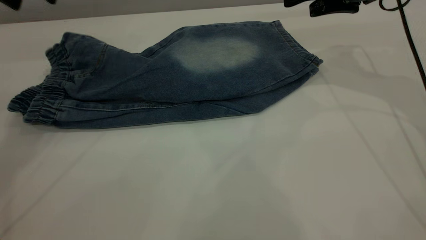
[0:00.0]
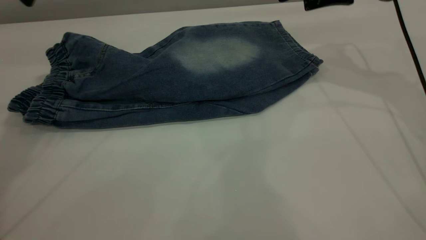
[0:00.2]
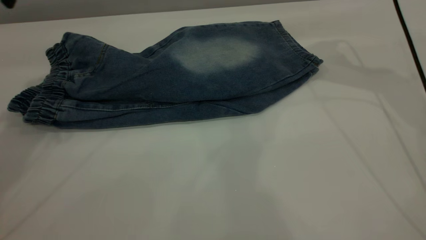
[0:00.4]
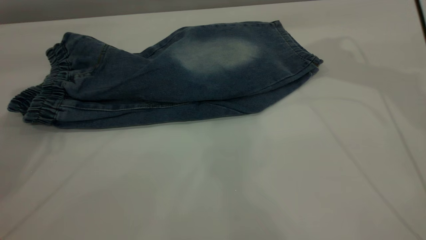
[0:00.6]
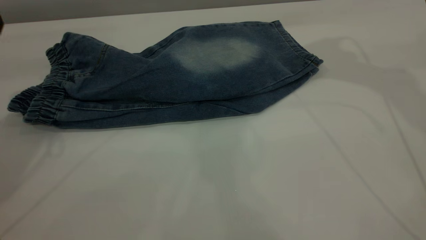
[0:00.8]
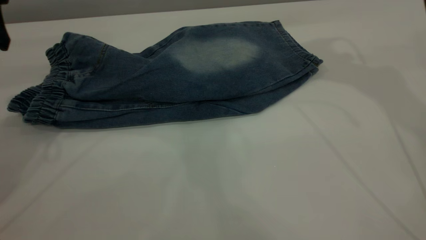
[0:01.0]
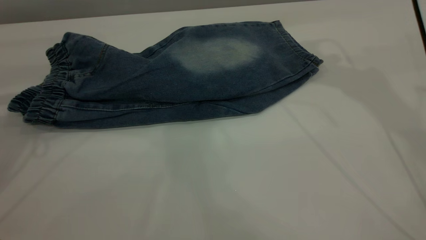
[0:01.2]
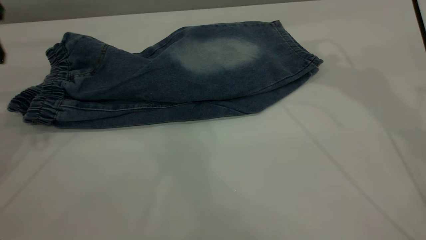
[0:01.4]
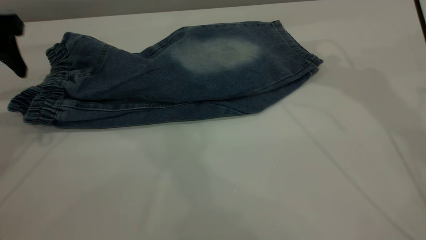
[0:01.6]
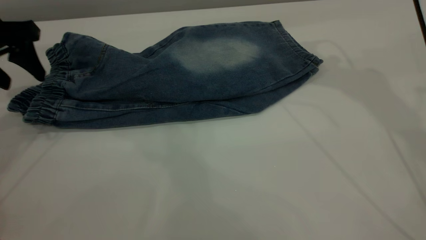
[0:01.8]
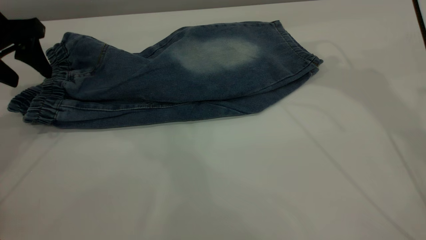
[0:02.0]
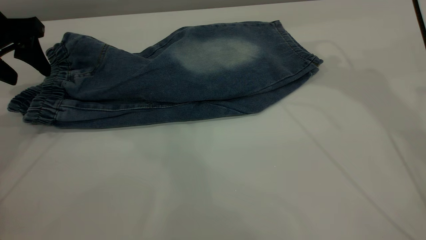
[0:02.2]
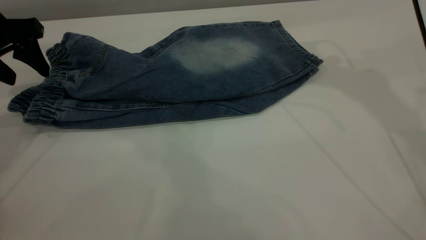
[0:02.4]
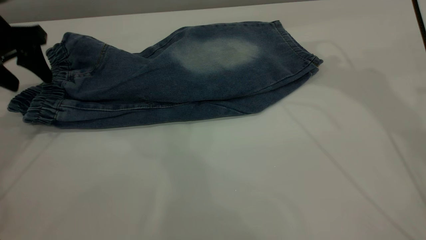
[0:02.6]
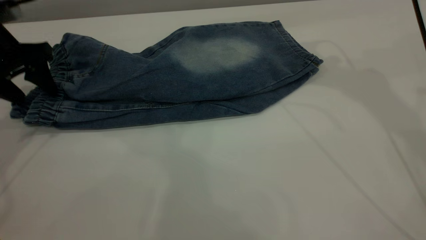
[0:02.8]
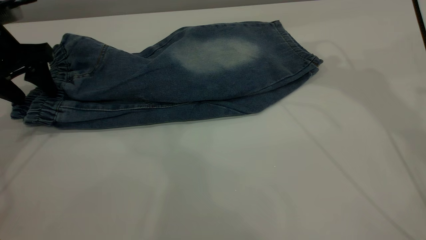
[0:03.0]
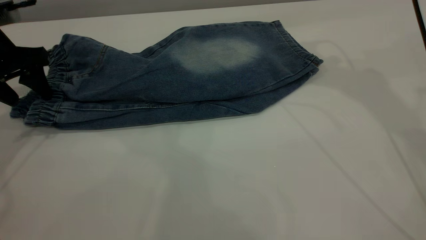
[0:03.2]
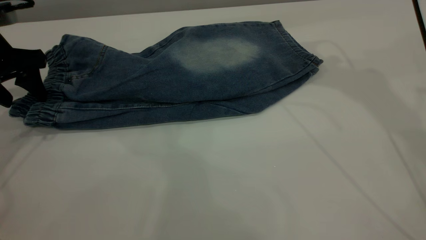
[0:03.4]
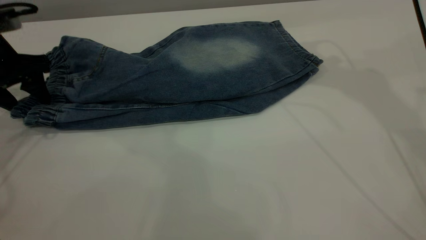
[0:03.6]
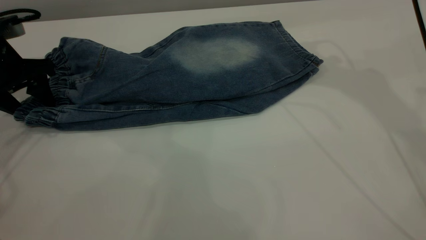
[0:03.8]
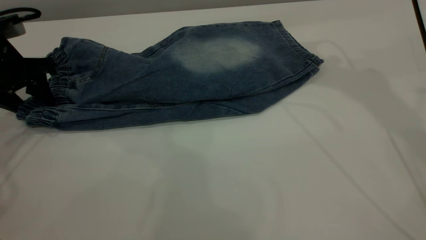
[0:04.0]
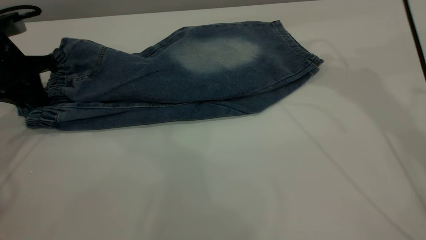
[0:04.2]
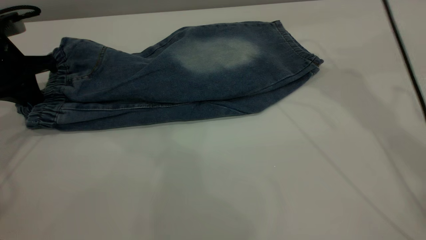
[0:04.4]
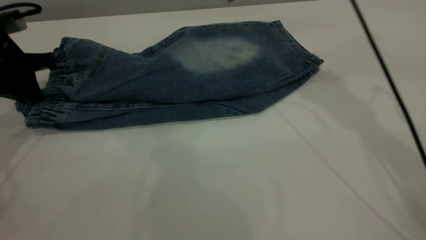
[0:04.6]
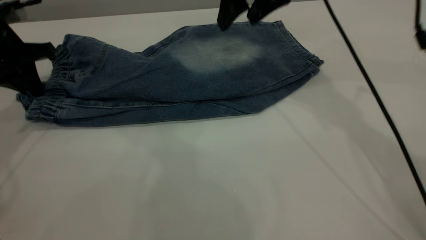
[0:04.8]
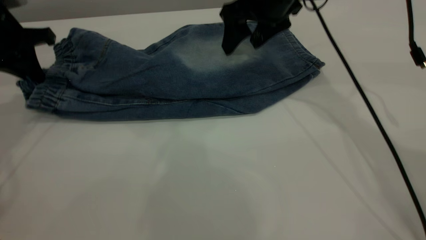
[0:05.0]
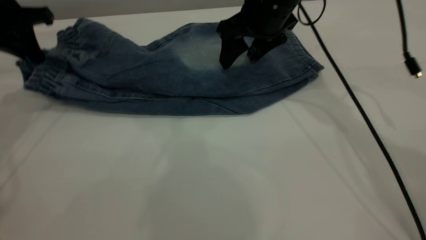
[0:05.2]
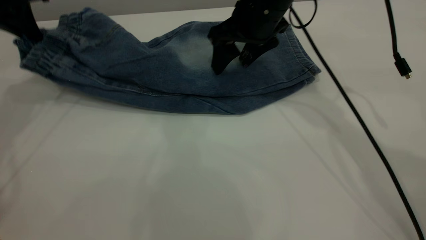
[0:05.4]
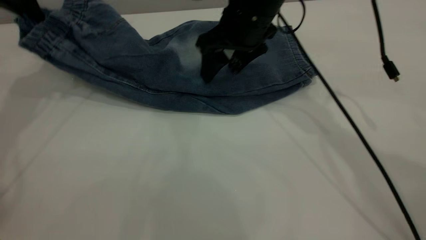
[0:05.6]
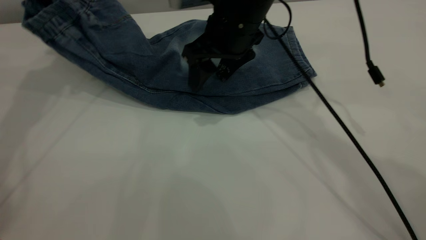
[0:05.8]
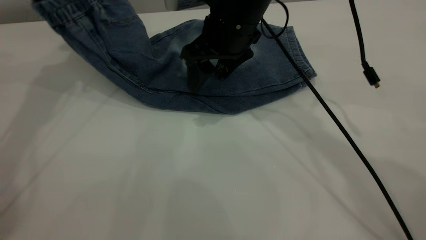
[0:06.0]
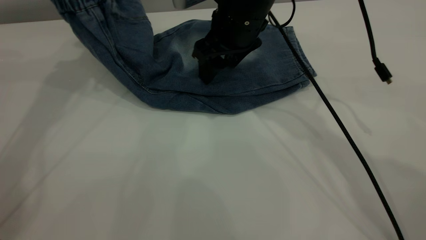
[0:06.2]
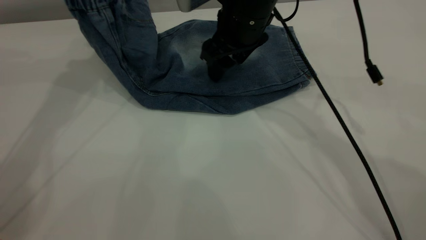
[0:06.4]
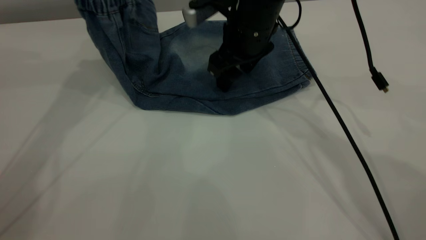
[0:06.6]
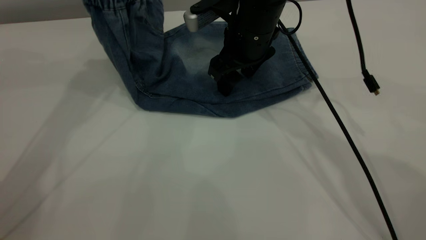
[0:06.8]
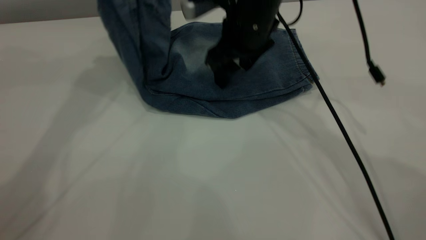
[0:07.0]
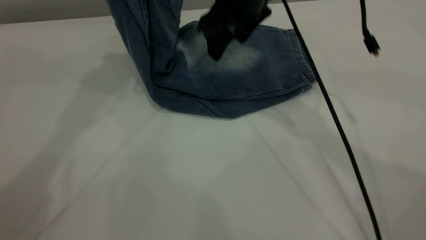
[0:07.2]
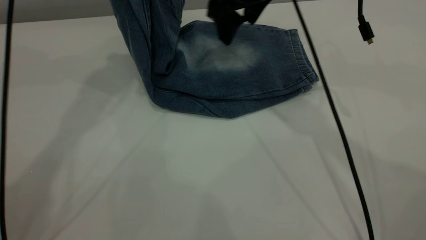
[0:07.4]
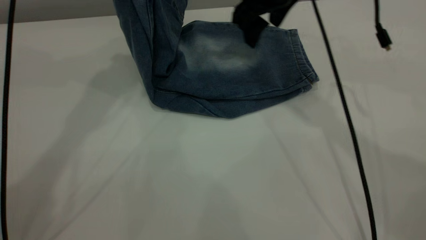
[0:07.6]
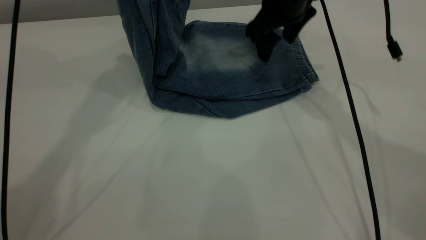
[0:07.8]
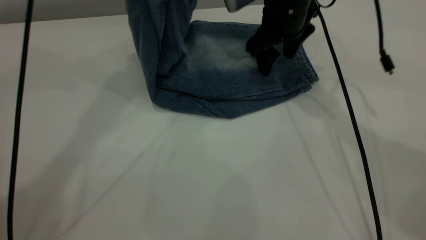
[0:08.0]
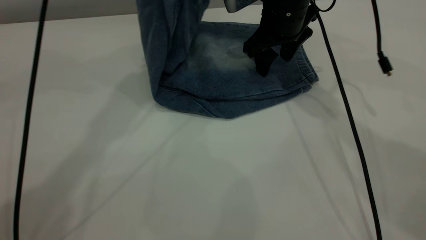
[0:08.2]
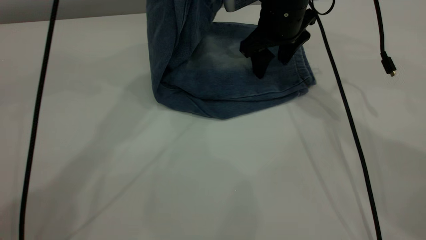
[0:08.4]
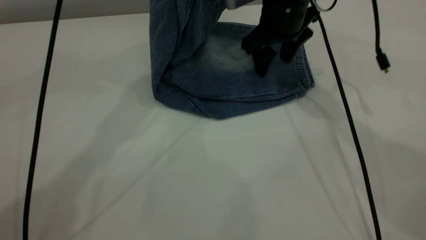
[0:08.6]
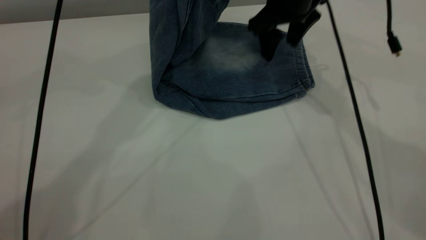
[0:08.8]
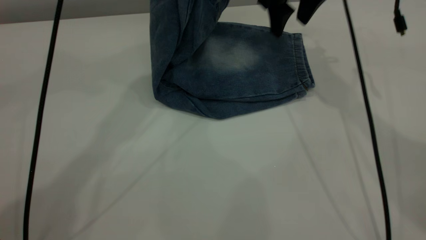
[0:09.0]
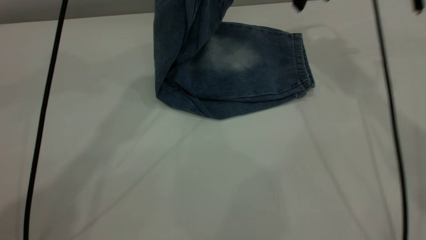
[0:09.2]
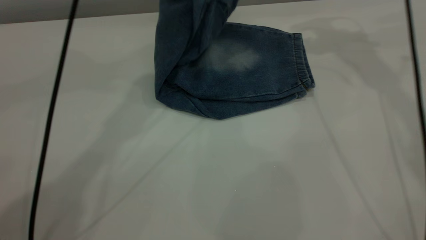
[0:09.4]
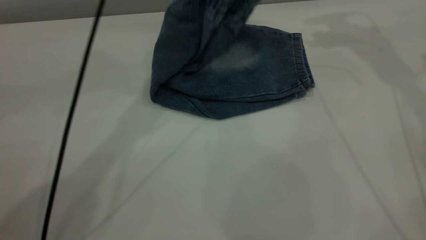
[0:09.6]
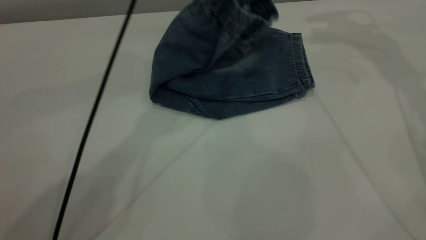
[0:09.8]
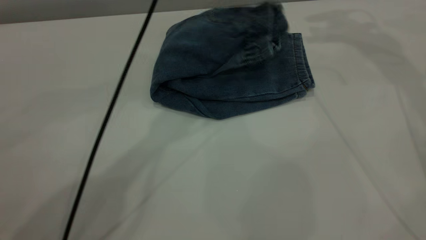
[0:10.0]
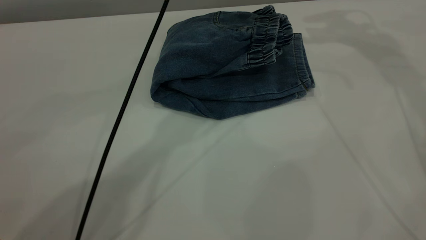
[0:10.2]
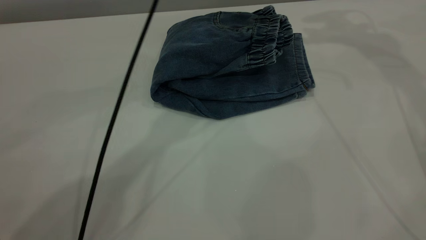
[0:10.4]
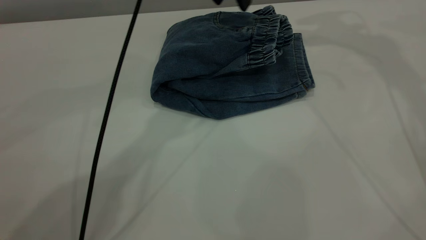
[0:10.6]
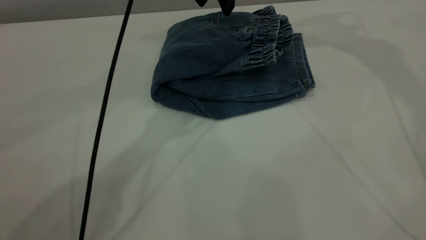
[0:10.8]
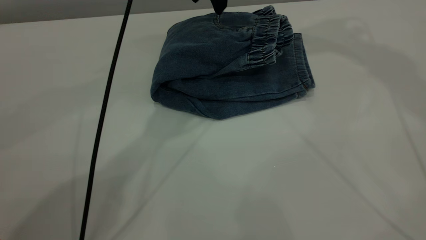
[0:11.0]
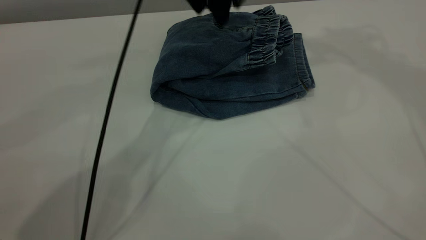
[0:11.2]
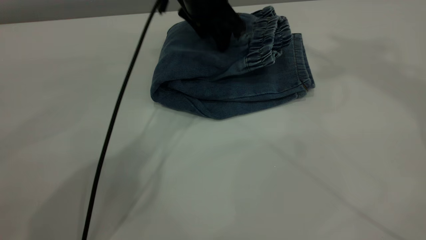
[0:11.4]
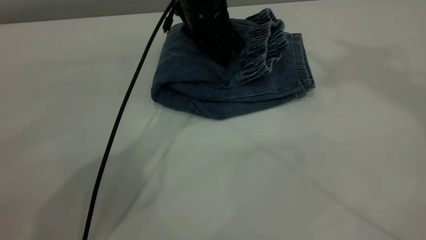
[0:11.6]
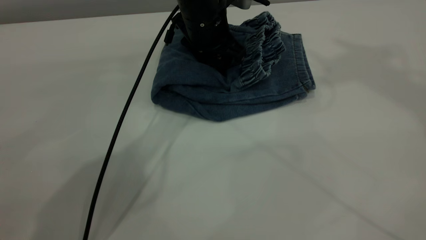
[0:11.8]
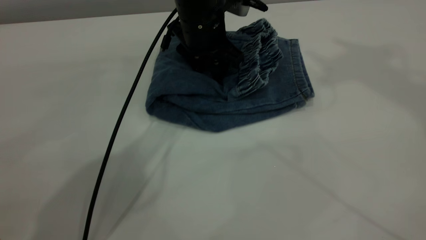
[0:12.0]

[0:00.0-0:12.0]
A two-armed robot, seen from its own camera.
Step, 0:00.6 to 0:10.2: Fold the pants from left to right.
0:00.0 to 0:01.6: The left gripper heads downward, covering approximately 10 cm. Meanwhile the right gripper shifts approximately 15 cm upward and to the left.
0:01.6 to 0:03.0: The left gripper moves approximately 5 cm.
0:03.0 to 0:04.4: The right gripper changes place by about 5 cm, while the left gripper closes.
0:04.4 to 0:06.0: The right gripper shifts roughly 15 cm downward and to the left. The left gripper travels upward and forward by about 20 cm.
0:06.0 to 0:07.6: The right gripper shifts about 5 cm to the right. Meanwhile the left gripper shifts about 15 cm to the right and upward.
0:07.6 to 0:09.0: Both grippers move to the right, about 5 cm.
0:09.0 to 0:10.4: The left gripper travels downward and to the right by some 10 cm, and opens up. The right gripper travels upward and to the right by approximately 15 cm.
0:10.4 to 0:12.0: The left gripper goes some 15 cm downward. The right gripper is displaced upward and backward by roughly 30 cm.

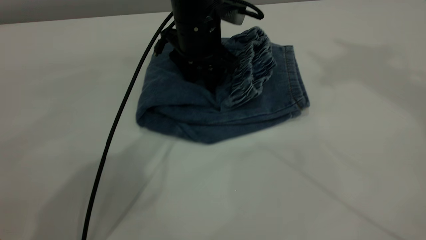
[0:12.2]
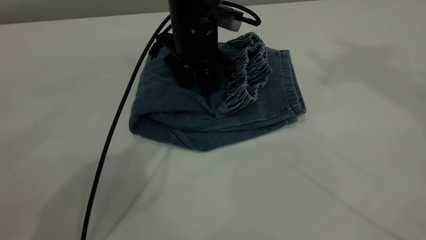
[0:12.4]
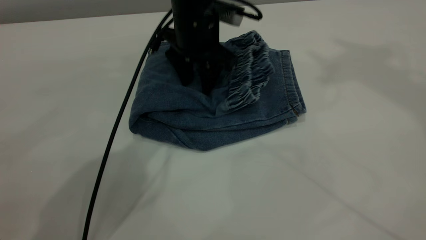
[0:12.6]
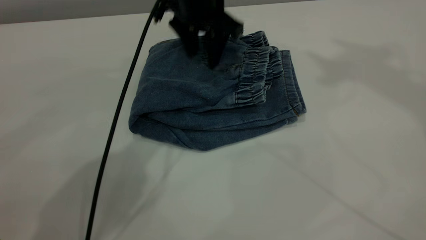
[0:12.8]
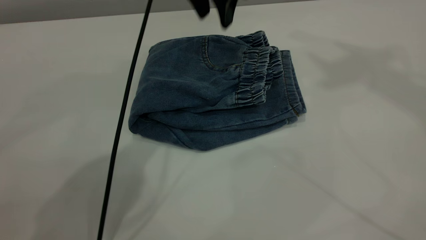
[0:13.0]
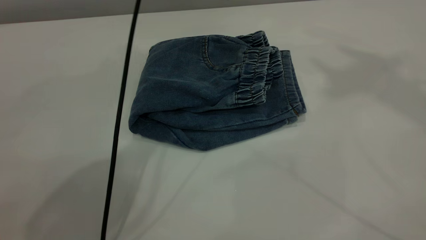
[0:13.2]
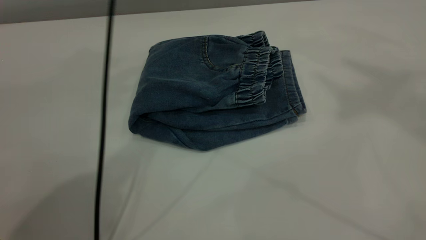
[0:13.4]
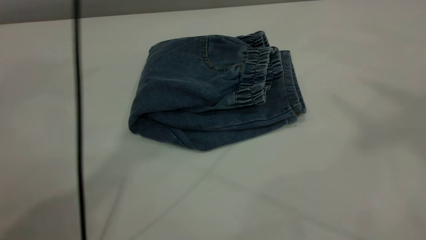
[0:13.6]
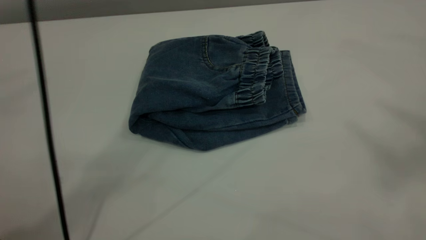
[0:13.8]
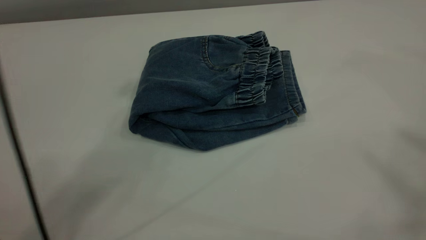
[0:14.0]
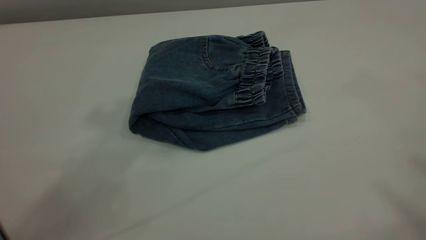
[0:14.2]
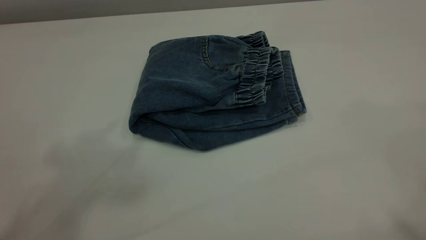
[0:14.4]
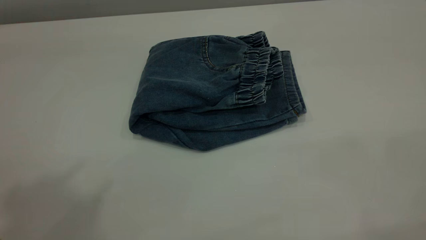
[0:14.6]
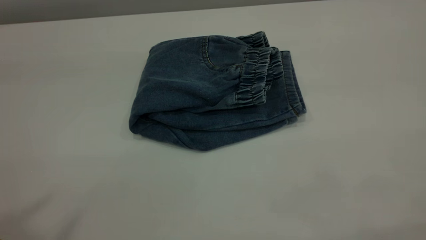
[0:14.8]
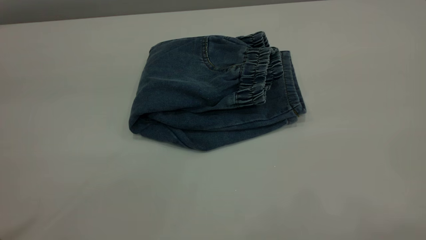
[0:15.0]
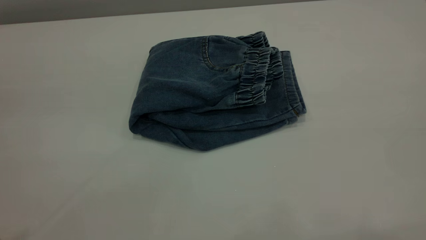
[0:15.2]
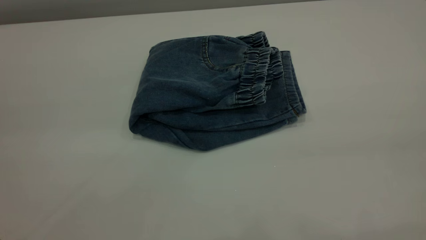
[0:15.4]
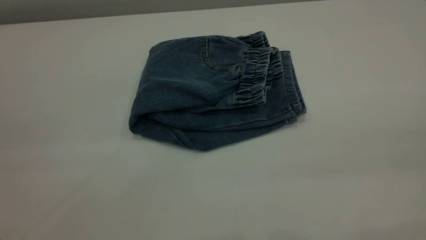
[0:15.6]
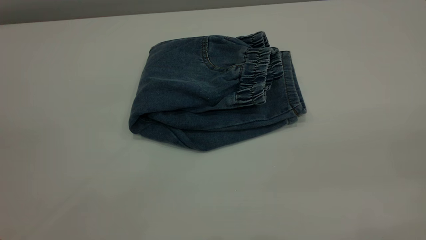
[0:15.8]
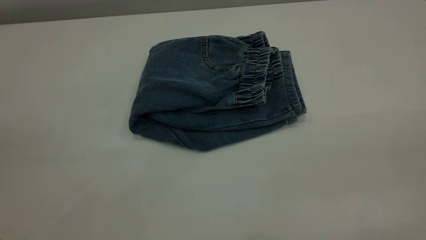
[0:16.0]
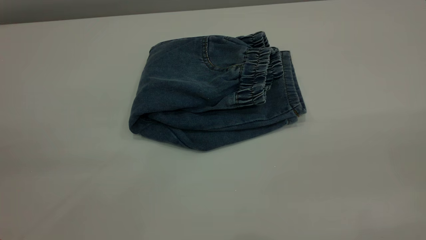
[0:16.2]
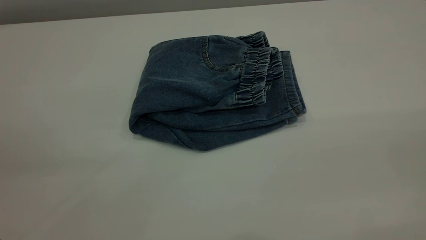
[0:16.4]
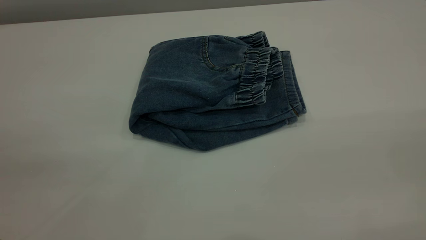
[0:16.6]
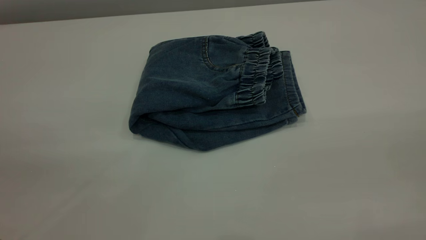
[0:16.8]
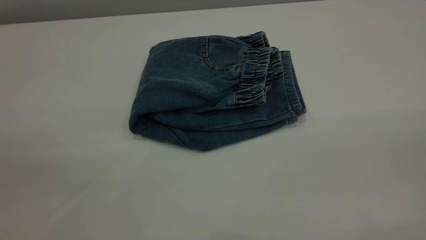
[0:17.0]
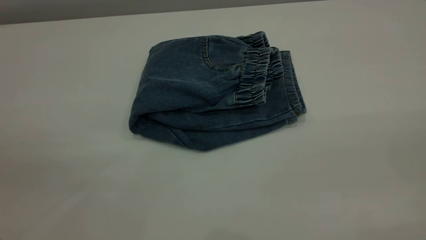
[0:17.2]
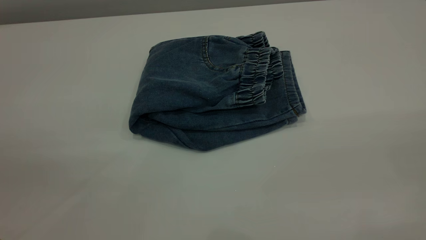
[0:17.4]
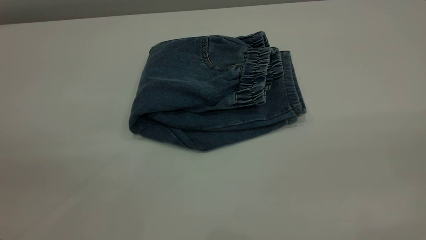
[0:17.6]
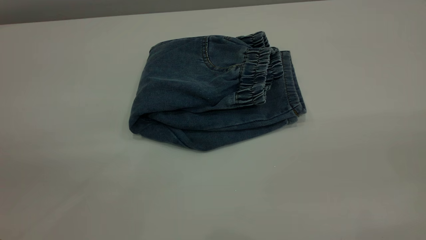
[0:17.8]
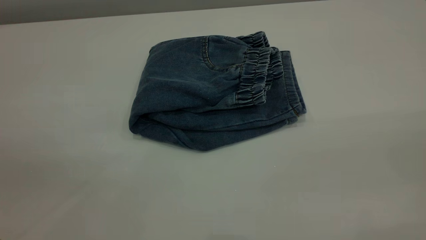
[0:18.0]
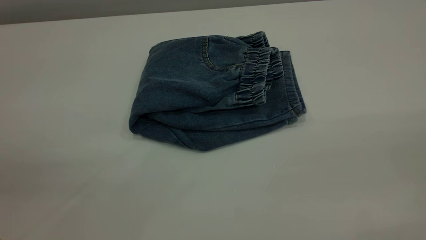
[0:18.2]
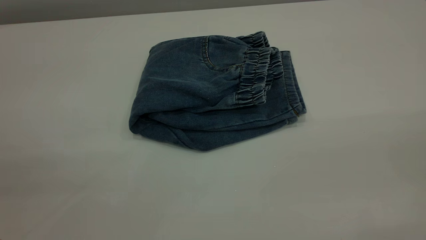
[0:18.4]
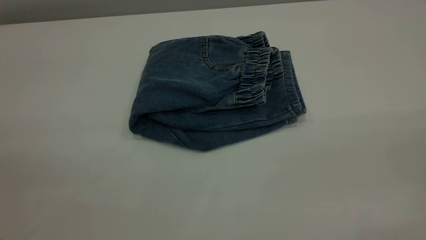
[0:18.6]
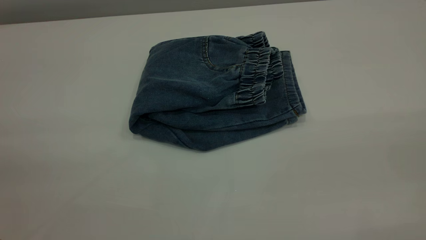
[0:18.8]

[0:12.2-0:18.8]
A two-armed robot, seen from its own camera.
0:12.2 to 0:13.8: The left gripper heads upward, covering some 40 cm; the right gripper heads backward and upward, covering some 20 cm.
0:13.8 to 0:15.4: The left gripper heads backward and to the left, covering roughly 35 cm.
